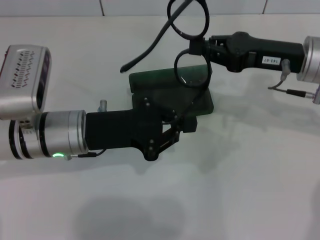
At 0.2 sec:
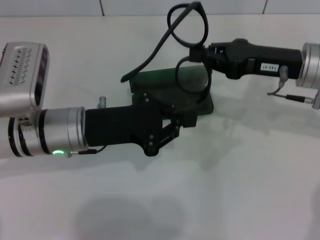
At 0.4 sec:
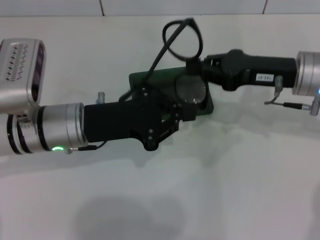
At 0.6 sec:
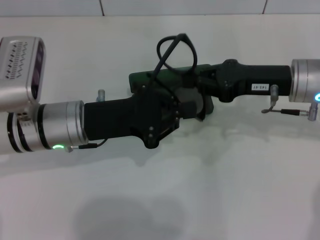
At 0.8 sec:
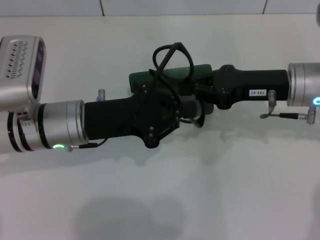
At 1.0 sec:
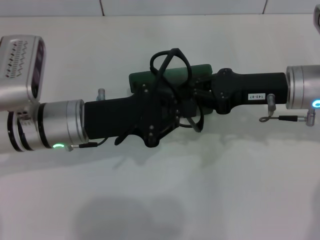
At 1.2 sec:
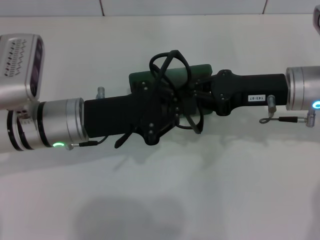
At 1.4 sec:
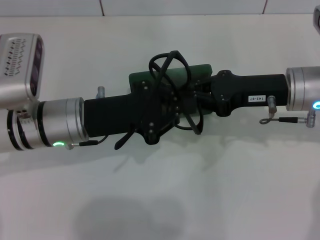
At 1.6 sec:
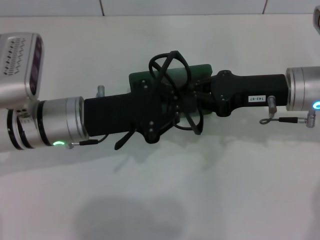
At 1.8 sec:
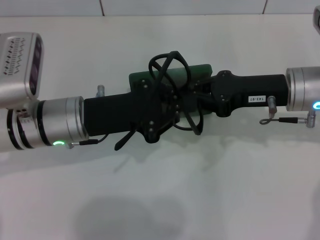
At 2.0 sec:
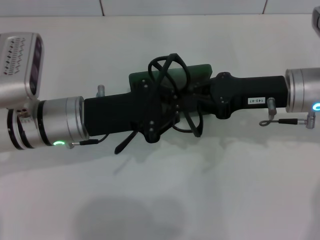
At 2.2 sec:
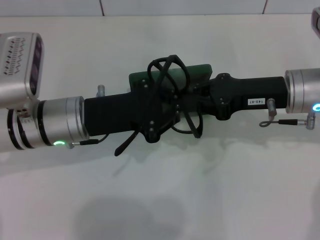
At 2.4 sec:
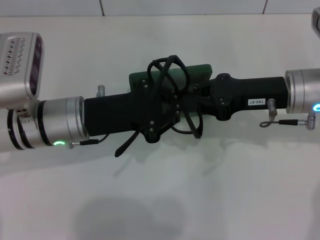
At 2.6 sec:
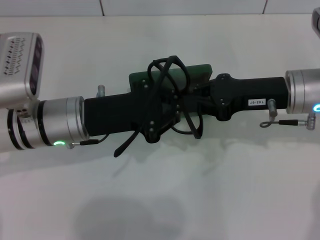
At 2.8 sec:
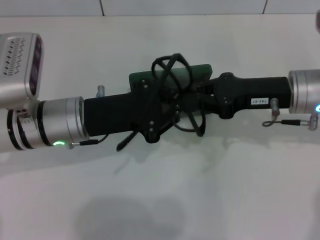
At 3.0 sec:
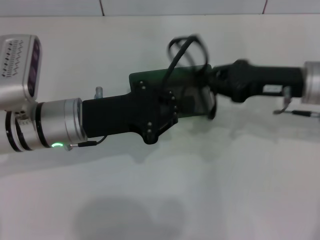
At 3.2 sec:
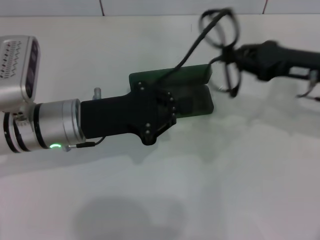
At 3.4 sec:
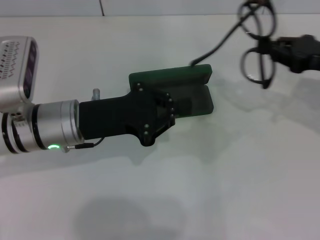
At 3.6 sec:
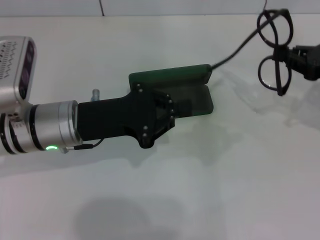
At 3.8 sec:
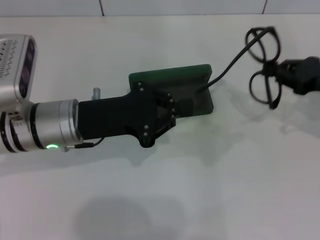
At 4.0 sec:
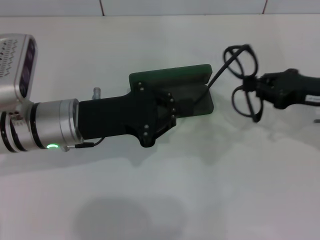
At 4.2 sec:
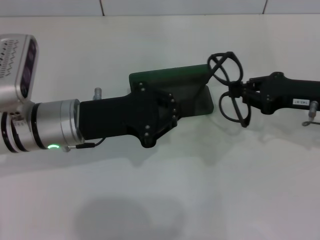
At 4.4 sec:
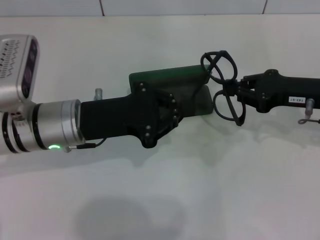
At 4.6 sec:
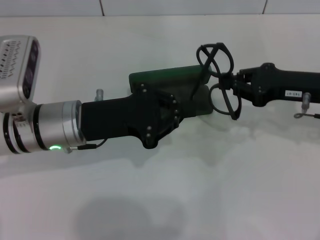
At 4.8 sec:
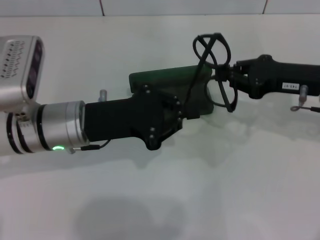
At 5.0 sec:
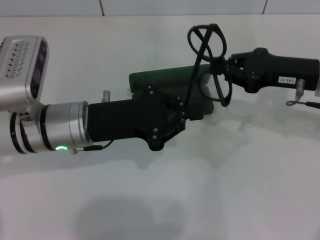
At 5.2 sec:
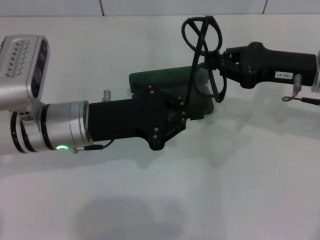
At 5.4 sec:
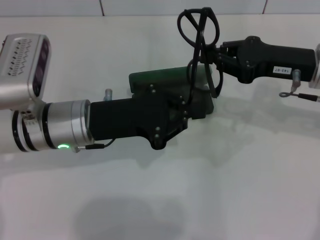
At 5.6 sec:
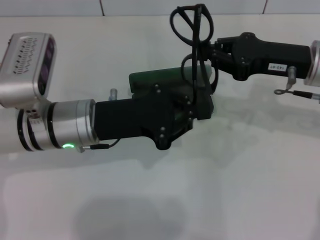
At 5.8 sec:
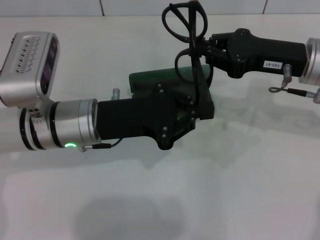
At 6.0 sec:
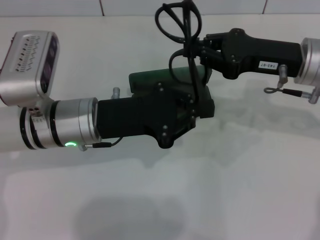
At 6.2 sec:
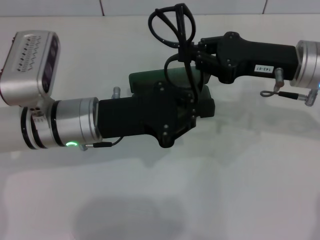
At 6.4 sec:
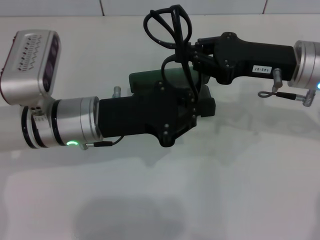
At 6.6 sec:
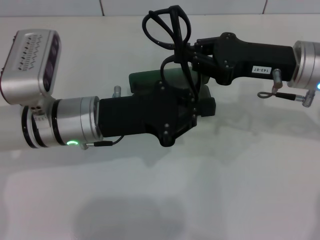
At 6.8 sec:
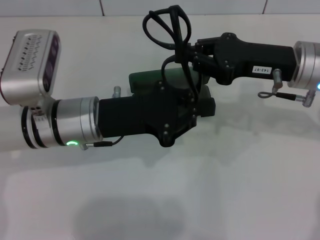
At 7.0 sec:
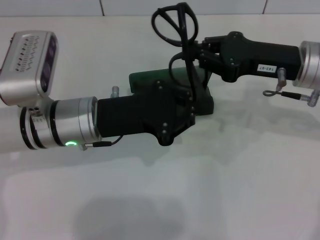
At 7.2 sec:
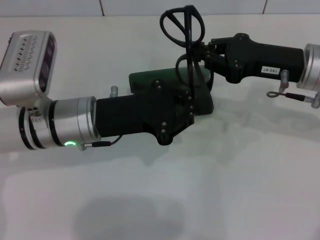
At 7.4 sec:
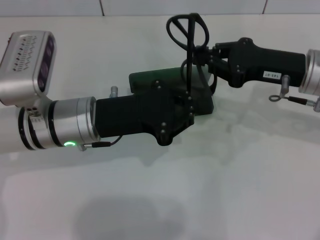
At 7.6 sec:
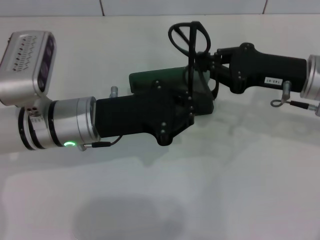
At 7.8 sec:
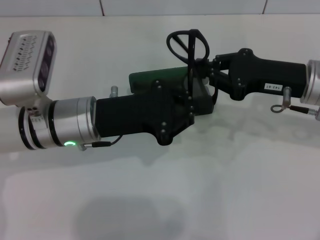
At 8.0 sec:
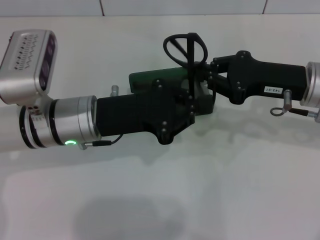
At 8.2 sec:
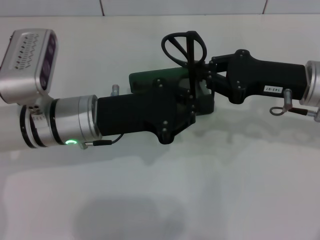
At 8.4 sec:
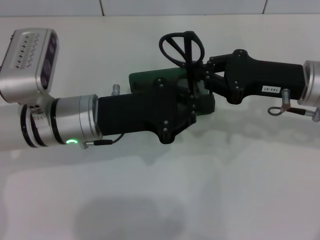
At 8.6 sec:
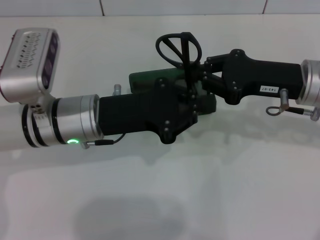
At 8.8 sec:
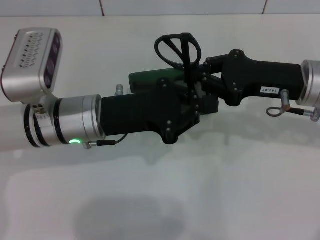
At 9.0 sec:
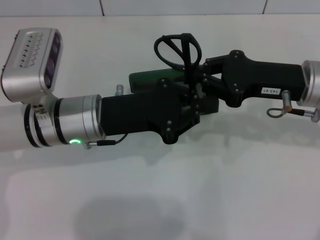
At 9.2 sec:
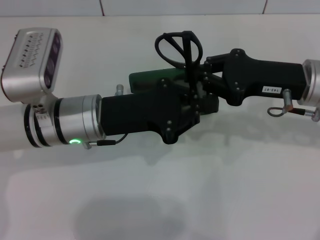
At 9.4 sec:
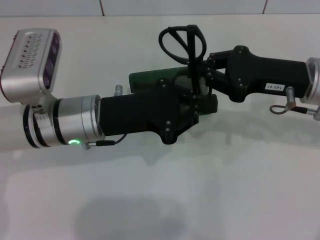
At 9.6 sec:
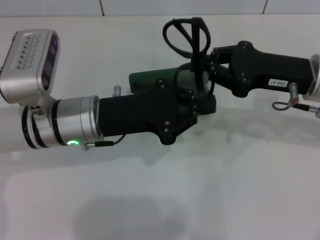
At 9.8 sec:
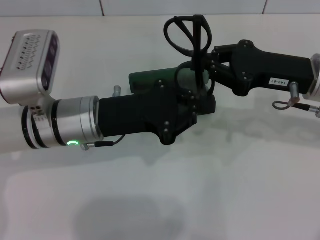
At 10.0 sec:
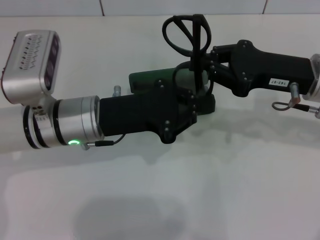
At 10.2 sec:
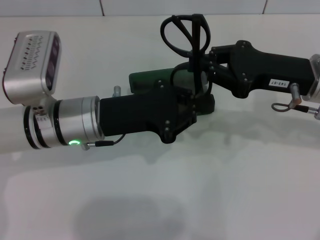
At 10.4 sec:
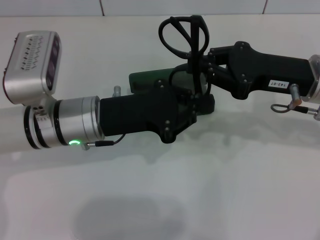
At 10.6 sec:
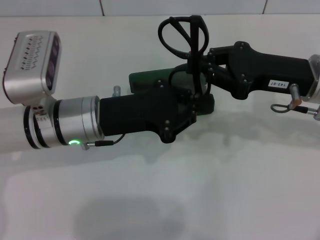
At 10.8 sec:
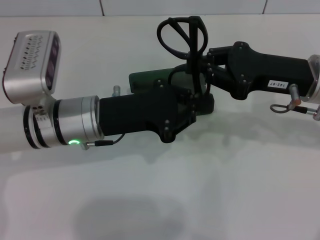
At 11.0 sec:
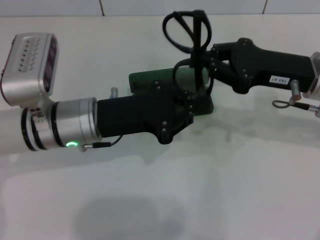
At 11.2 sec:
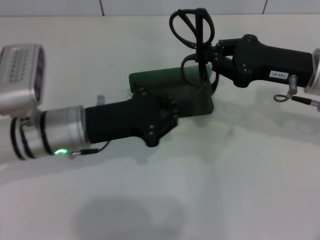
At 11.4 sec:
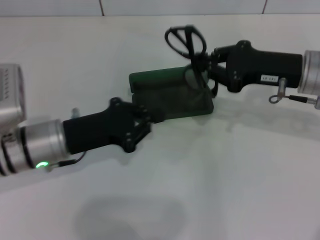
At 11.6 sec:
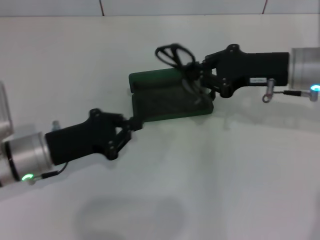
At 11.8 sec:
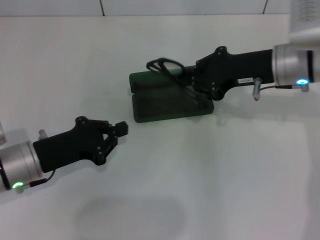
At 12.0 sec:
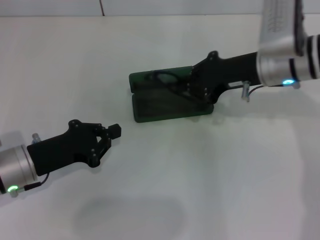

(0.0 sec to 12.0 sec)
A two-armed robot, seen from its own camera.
Step, 0.0 sec - 10.4 sec: Fold the frame with your left hand.
1.6 sec - 3.0 sec: The grippers stay close to where they were, moving slightly.
4.4 sec - 6.0 sec: The right gripper heads to the left, covering about 5 cm.
6.0 sec - 10.4 sec: The grippers make only small movements.
10.4 sec - 12.0 sec: The right gripper goes roughly 5 cm forward. The left gripper is displaced to the left and downward by some 10 cm.

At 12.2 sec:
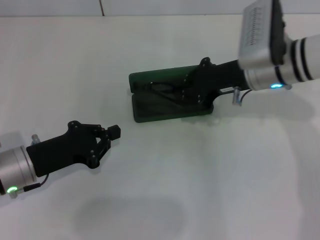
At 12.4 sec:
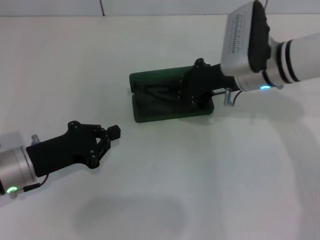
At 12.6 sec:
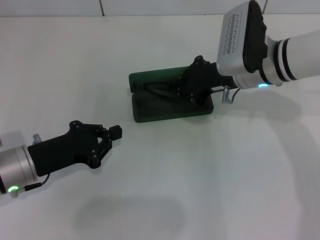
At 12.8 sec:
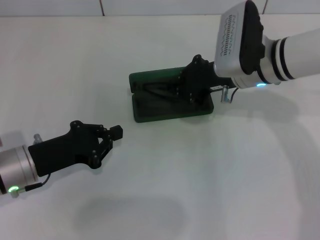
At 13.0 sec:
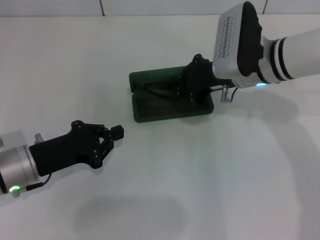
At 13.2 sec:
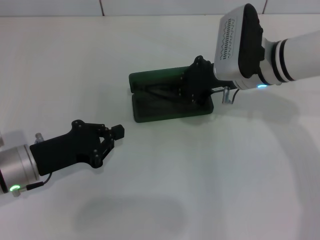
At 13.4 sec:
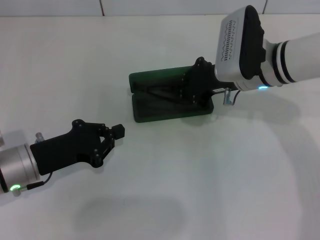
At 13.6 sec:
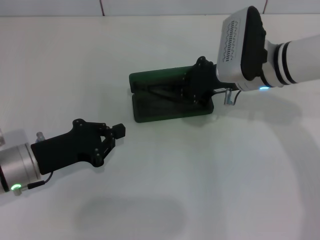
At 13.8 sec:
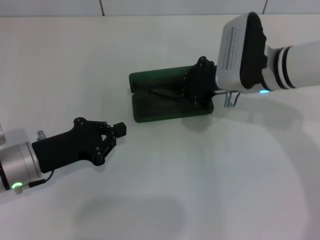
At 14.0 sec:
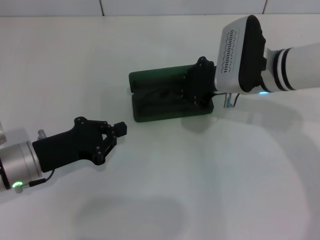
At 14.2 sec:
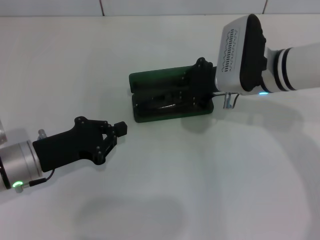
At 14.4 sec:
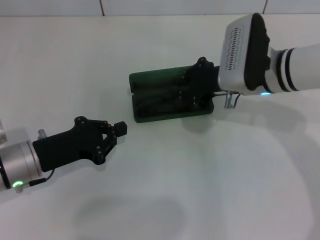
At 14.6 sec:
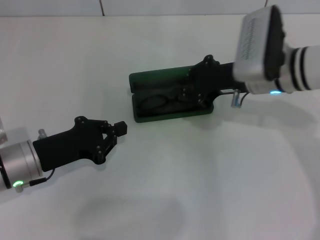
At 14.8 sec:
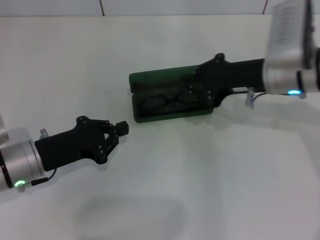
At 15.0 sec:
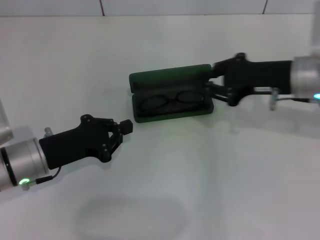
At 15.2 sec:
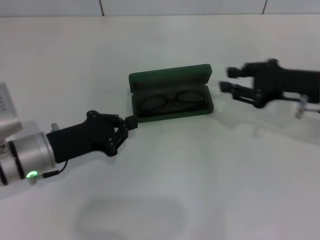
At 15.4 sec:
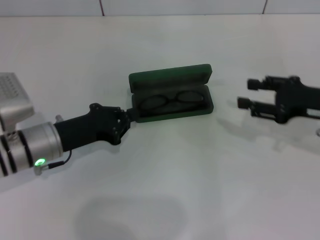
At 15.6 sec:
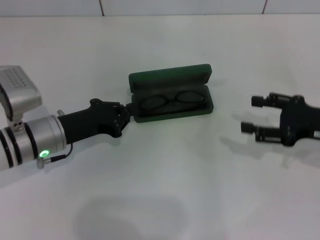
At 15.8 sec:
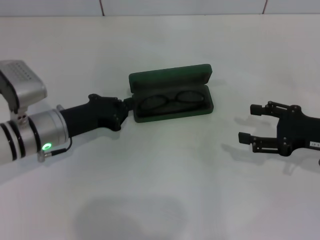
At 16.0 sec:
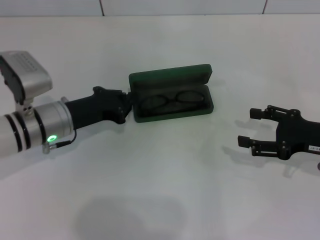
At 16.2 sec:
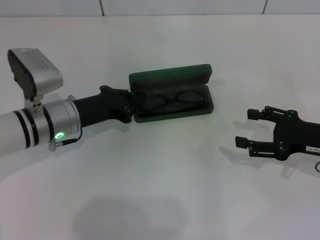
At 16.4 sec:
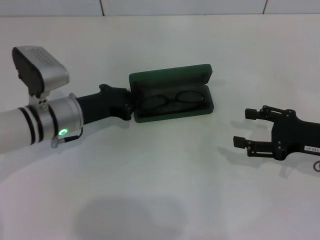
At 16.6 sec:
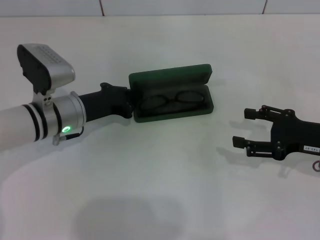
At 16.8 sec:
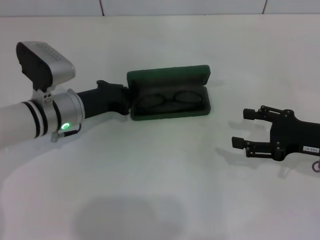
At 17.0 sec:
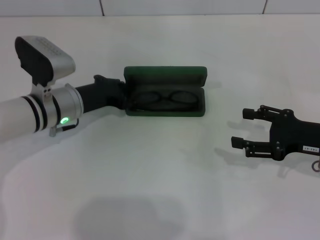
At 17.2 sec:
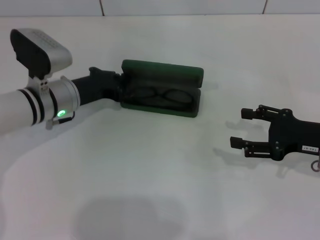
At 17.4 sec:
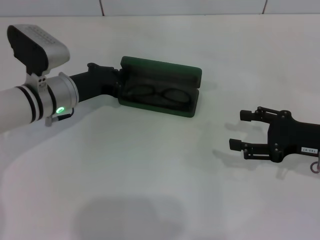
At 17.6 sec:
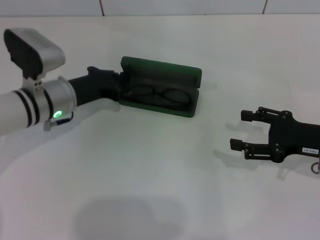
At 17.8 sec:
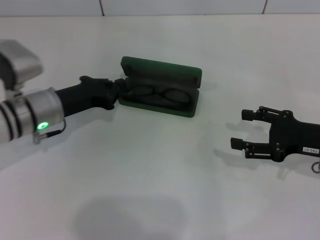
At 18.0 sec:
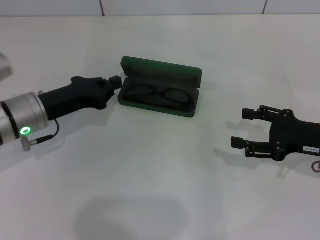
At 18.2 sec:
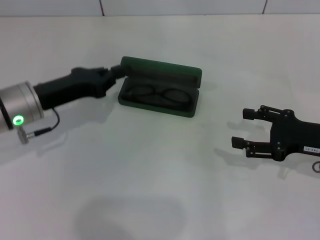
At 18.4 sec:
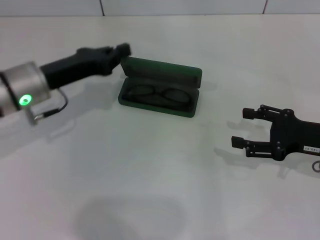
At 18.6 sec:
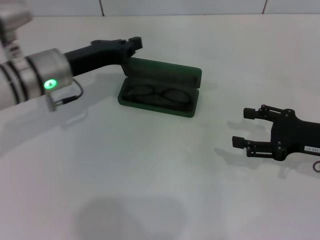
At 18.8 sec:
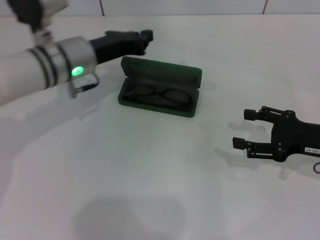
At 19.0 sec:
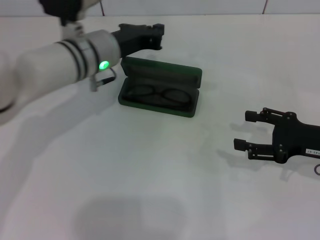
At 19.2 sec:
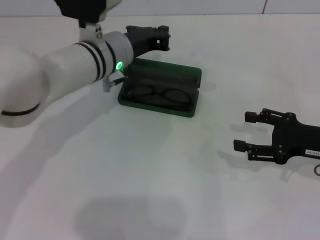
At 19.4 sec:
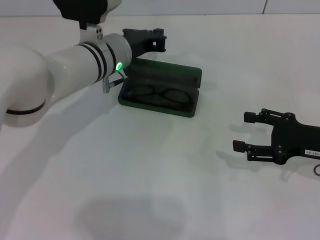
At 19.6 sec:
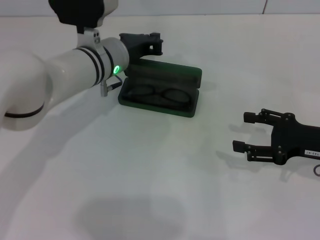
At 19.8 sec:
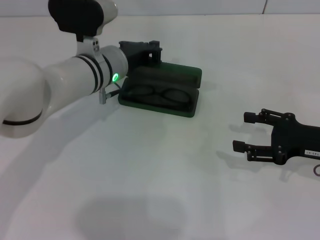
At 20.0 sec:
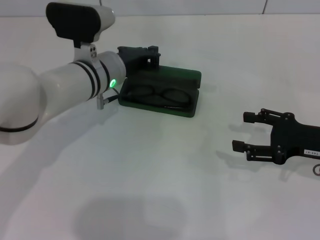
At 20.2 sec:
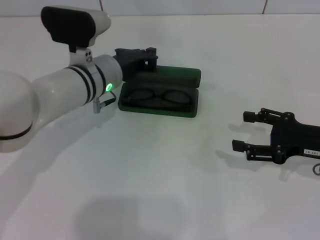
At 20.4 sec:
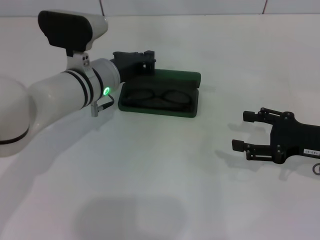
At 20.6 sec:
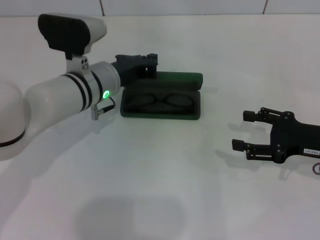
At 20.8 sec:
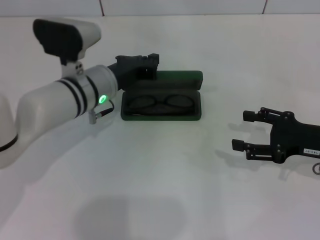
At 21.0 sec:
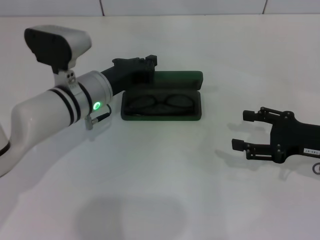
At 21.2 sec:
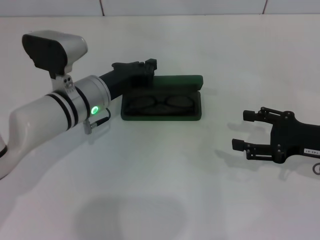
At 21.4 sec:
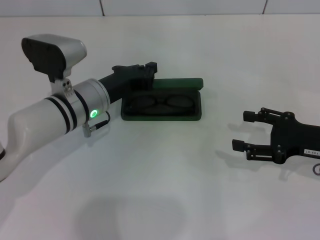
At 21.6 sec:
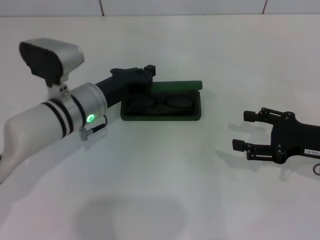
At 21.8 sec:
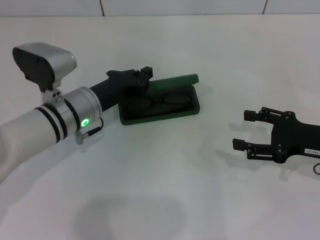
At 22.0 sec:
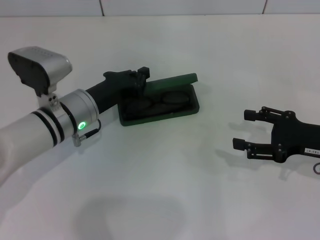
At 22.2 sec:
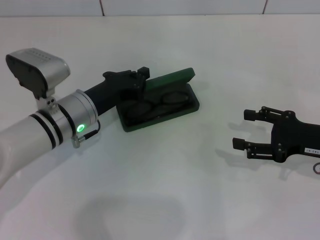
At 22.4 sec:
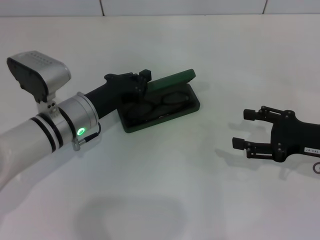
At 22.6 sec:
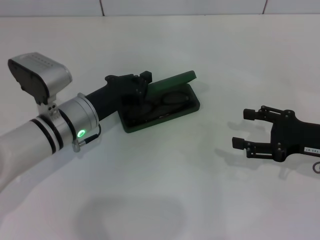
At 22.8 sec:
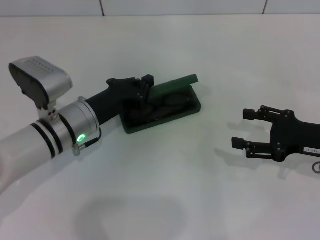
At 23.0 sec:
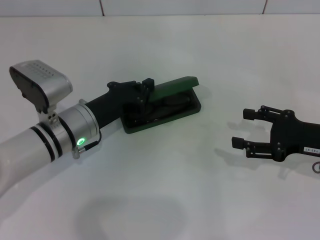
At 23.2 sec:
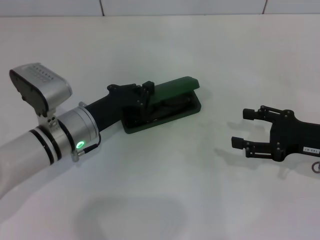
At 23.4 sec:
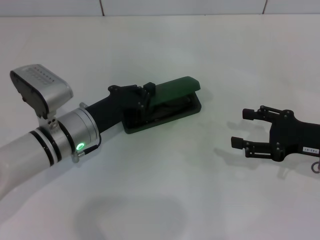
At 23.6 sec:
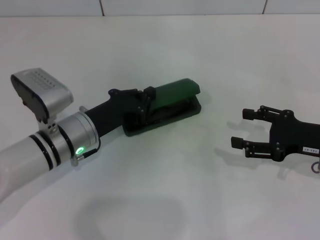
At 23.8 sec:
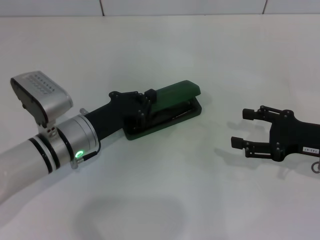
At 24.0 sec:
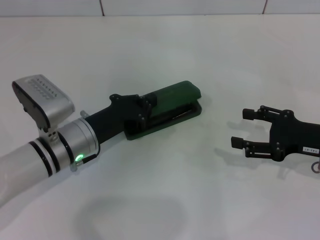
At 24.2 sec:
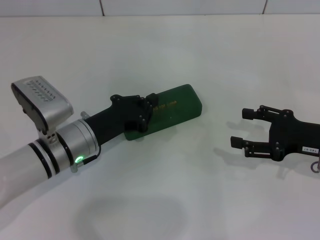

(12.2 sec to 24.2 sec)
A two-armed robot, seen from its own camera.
Step, 12.2 sec - 14.2 sec: Put the glasses into the case with your right hand.
Step, 14.6 sec - 24.0 sec: Close the glasses case with your left hand.
12.2 sec - 13.8 sec: The grippers make only small movements.
13.8 sec - 15.2 sec: The right gripper shifts about 10 cm to the right.
15.2 sec - 16.6 sec: The left gripper moves forward, some 5 cm. The right gripper is displaced backward and downward by some 10 cm, and opens.
16.6 sec - 18.2 sec: The left gripper moves about 5 cm.
18.2 sec - 19.8 sec: The left gripper is displaced to the right and forward by approximately 15 cm.
19.8 sec - 21.2 sec: The left gripper changes place by roughly 5 cm.
21.2 sec - 22.6 sec: There are only small adjustments of the grippers.
22.6 sec - 24.2 sec: The grippers make only small movements.
